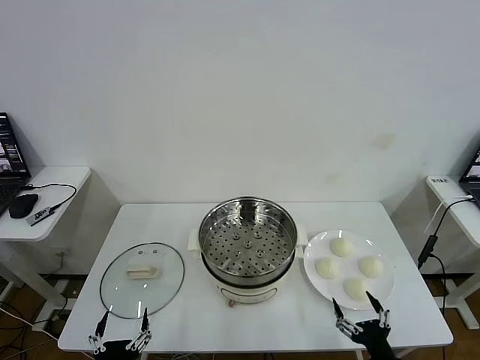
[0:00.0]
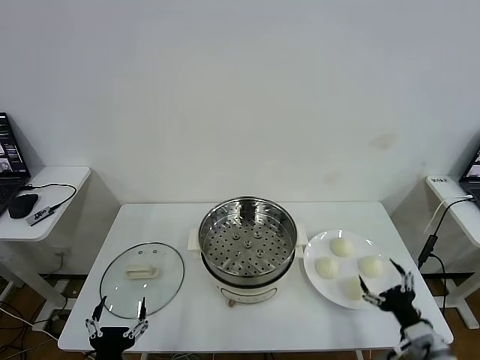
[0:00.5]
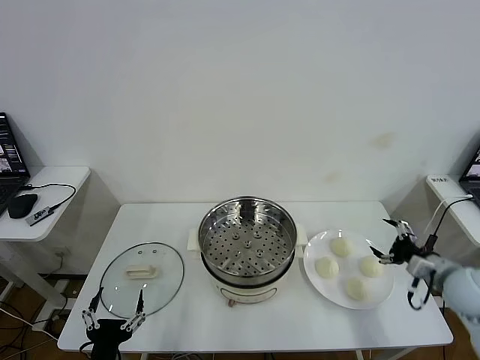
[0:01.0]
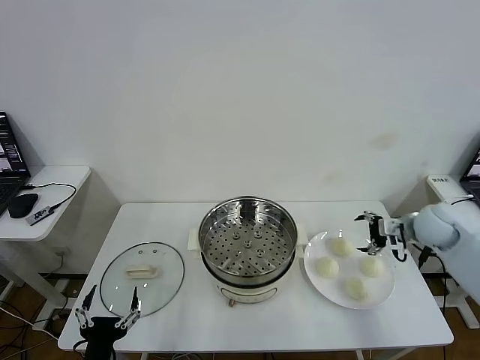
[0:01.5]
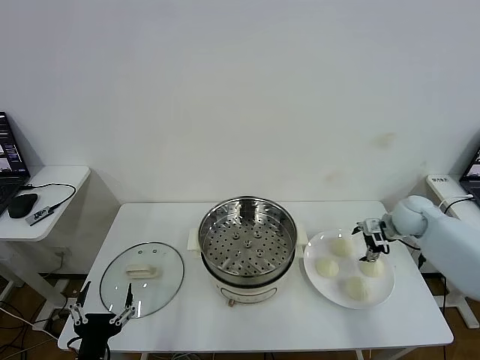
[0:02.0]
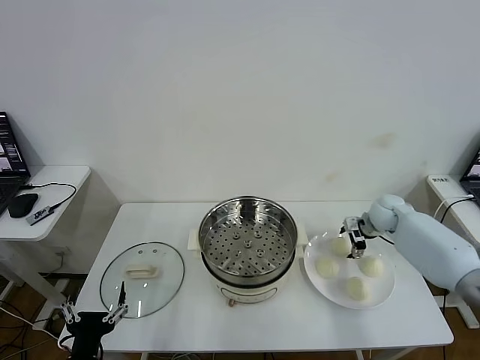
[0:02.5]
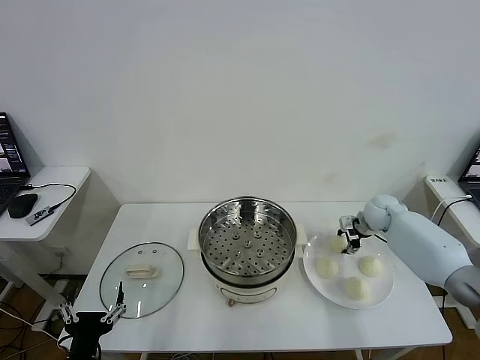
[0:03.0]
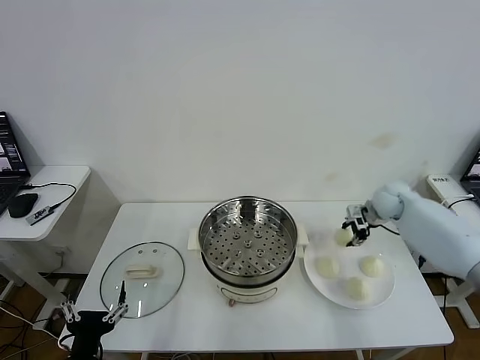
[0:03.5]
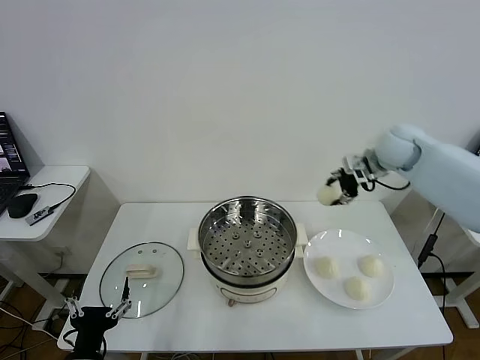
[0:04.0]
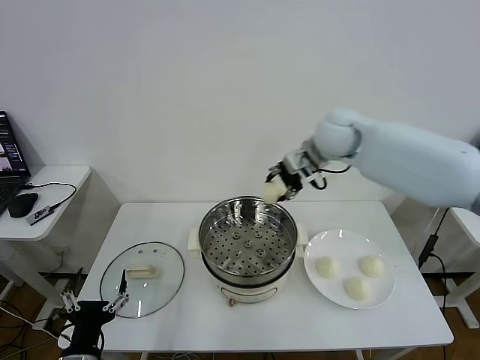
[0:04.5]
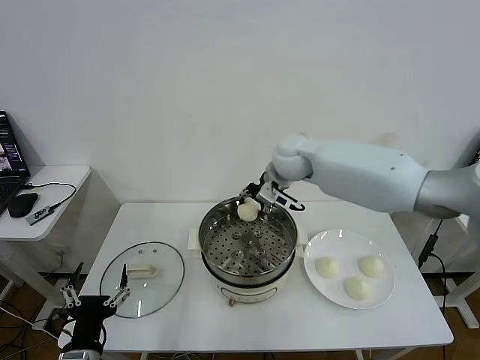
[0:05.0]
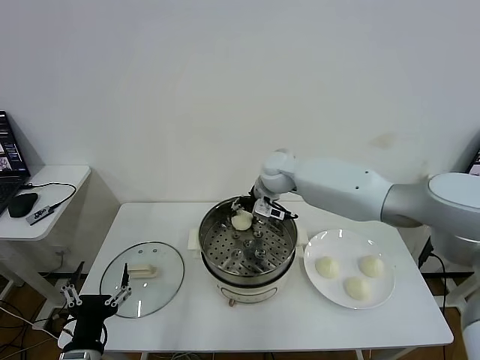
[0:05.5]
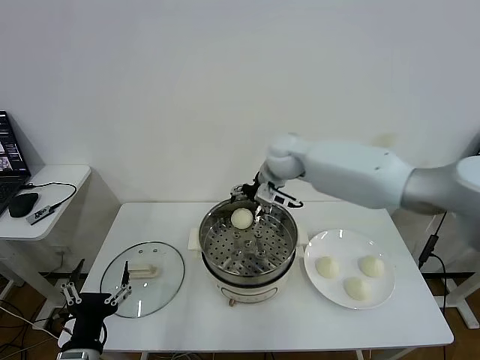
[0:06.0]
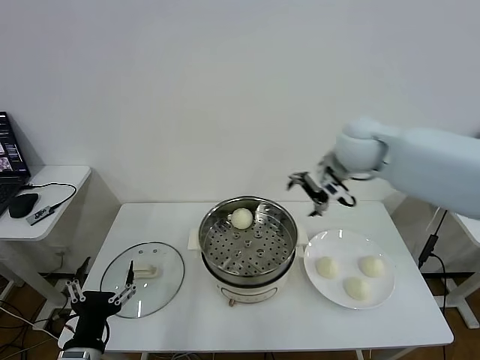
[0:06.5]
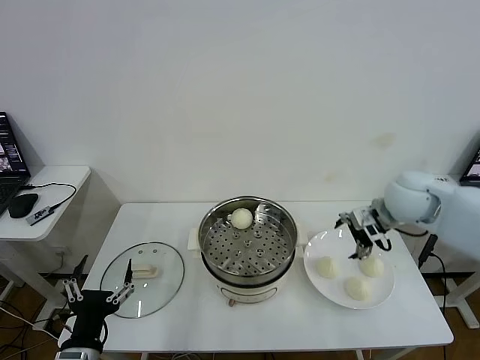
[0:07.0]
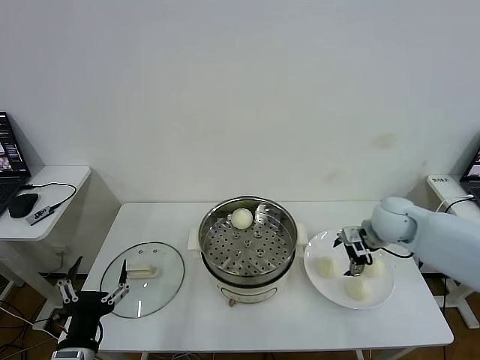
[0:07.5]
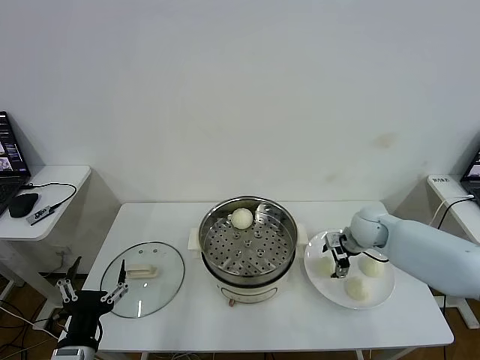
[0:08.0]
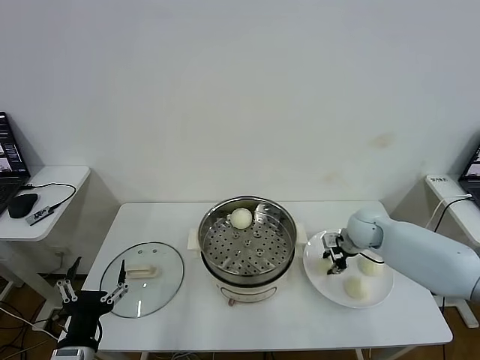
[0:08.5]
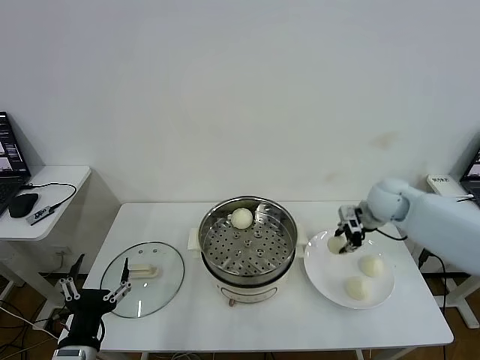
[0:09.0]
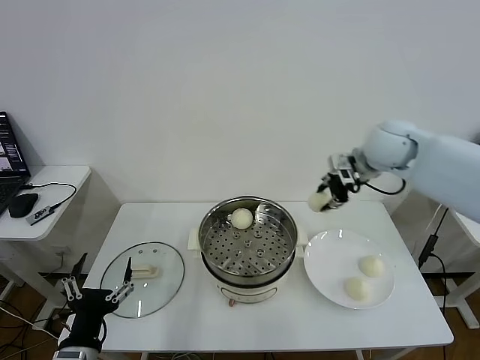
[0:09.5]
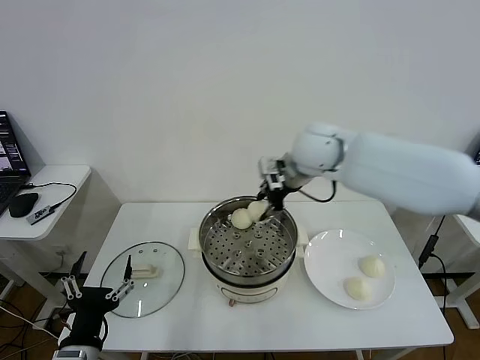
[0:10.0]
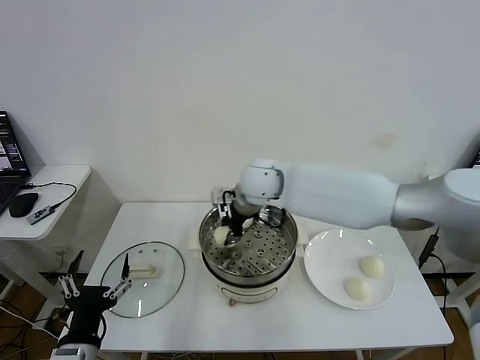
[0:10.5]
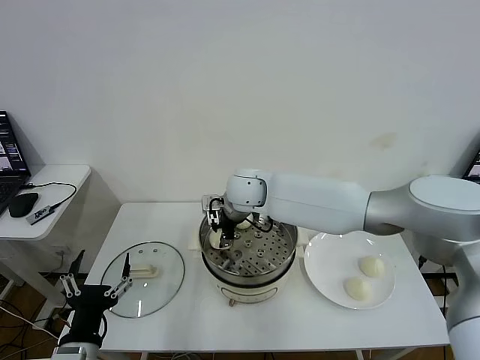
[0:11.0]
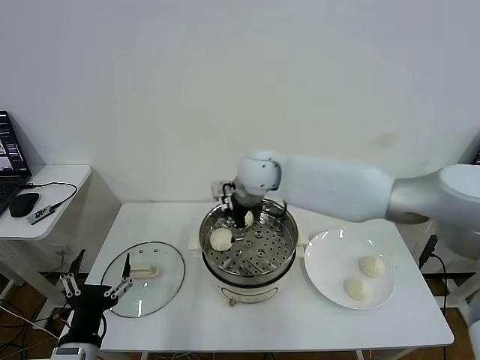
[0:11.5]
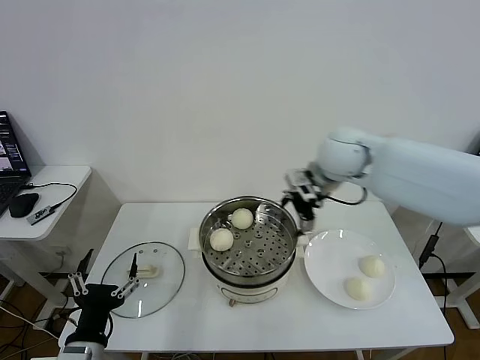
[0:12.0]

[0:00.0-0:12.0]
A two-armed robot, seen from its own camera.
Task of the whole recording: take steamed baozi put them in steamer then cover it.
Step, 0:00.0 to 0:02.5: Grasp the baozi in the plate with right gripper.
Step, 0:03.5 to 0:05.5: Place the baozi on the steamer with right gripper.
Step, 0:06.0 to 0:08.0: Grasp the baozi in the plate with right gripper.
Step, 0:08.5 to 0:11.0: Place the baozi on the steamer with right gripper.
0:02.0 to 0:04.0: The right gripper shifts some 20 cm upward and to the left, and closes its fingers.
0:04.0 to 0:06.0: The right gripper travels to the left by roughly 25 cm, and opens its fingers.
0:06.0 to 0:08.0: The right gripper travels to the right and downward by some 25 cm.
0:08.0 to 0:10.0: The right gripper moves upward and to the left, some 30 cm, and closes.
0:10.0 to 0:12.0: The right gripper goes to the left and returns, approximately 15 cm each way, and opens its fingers.

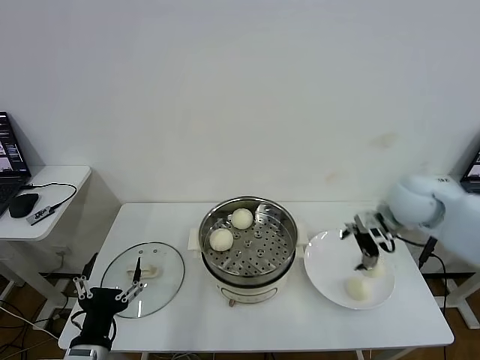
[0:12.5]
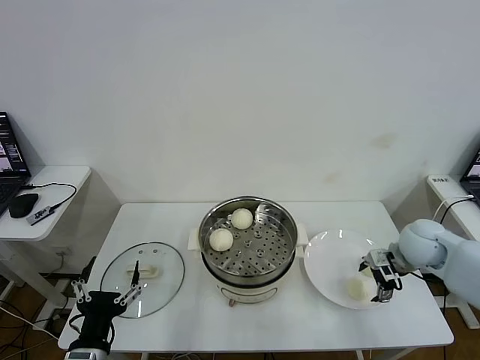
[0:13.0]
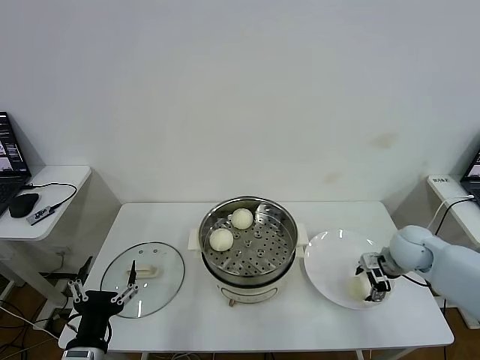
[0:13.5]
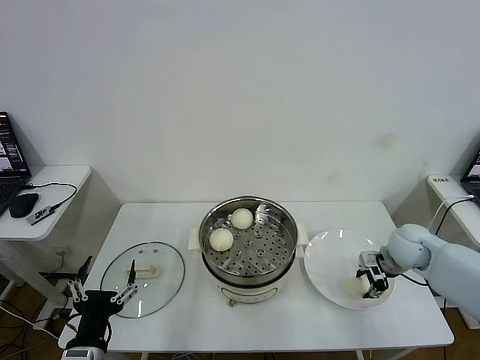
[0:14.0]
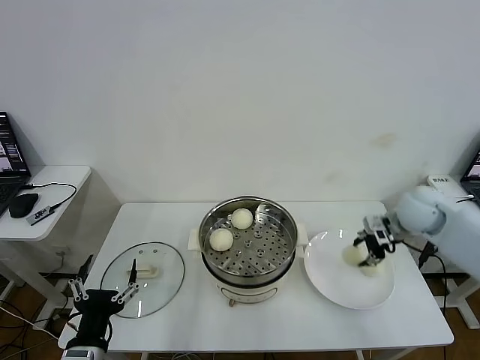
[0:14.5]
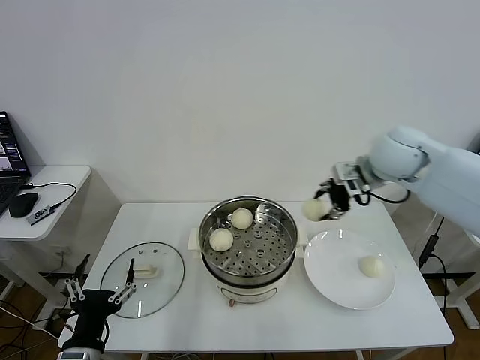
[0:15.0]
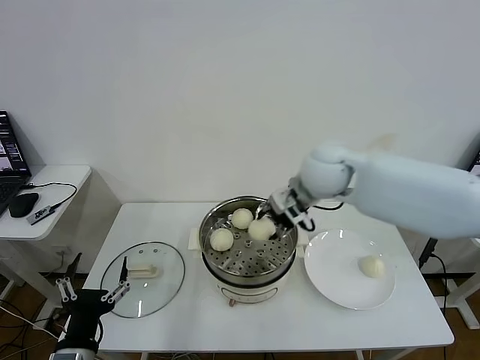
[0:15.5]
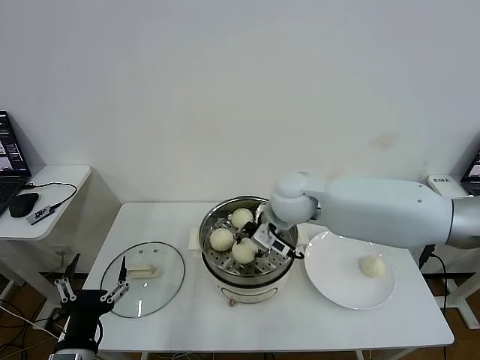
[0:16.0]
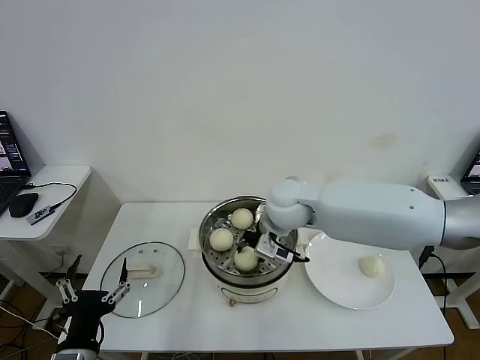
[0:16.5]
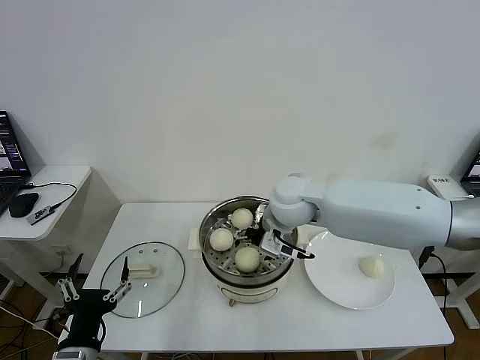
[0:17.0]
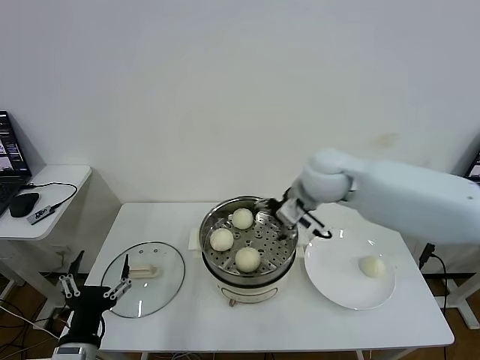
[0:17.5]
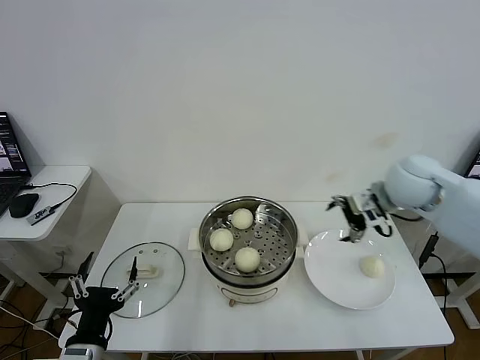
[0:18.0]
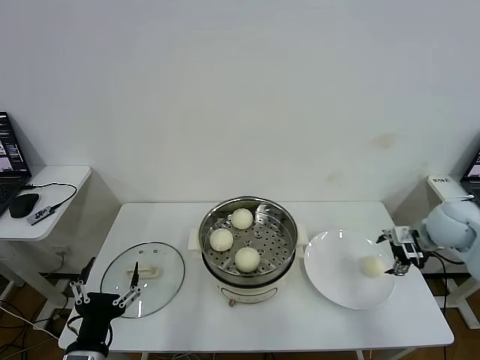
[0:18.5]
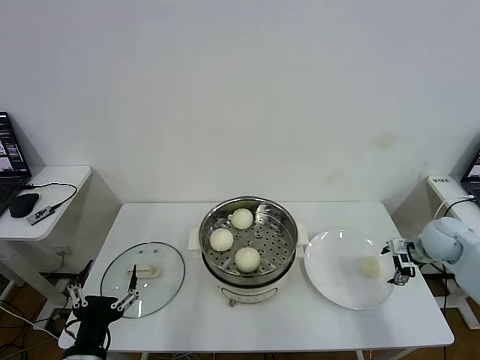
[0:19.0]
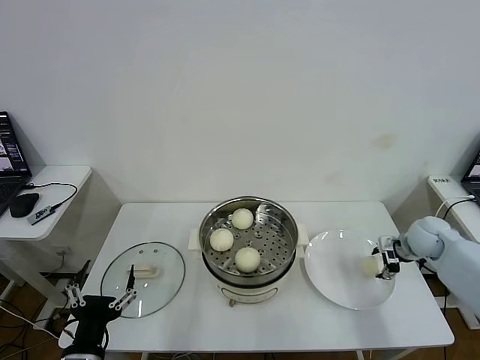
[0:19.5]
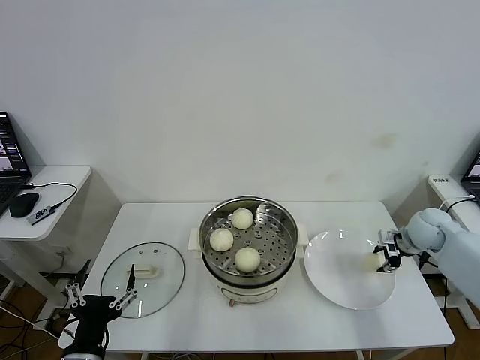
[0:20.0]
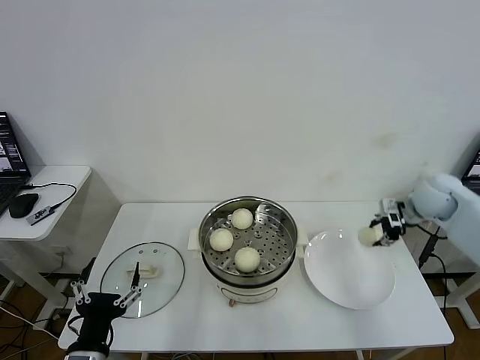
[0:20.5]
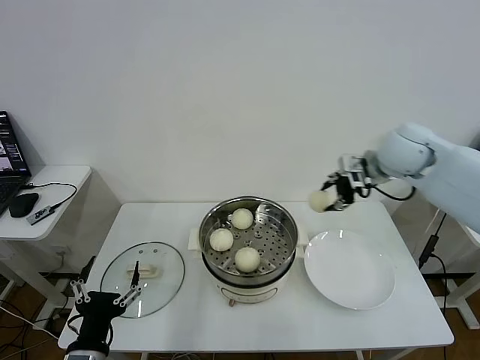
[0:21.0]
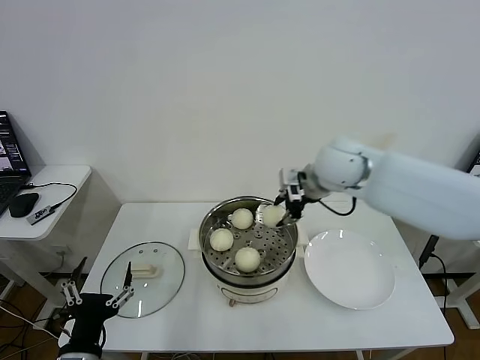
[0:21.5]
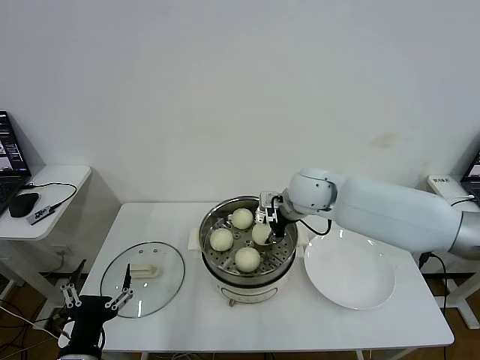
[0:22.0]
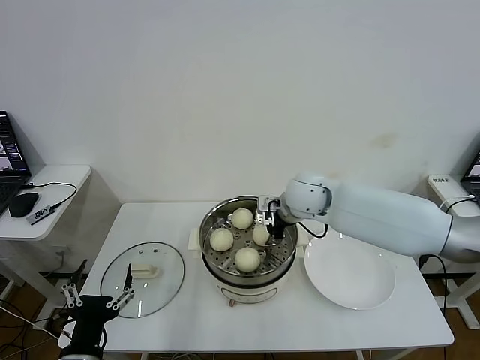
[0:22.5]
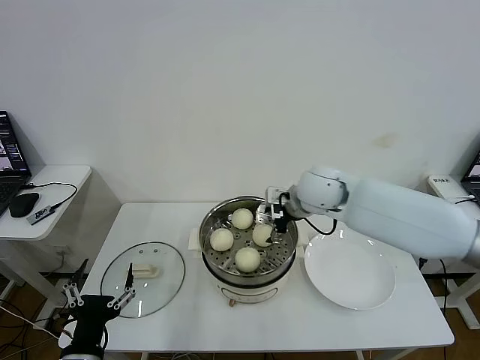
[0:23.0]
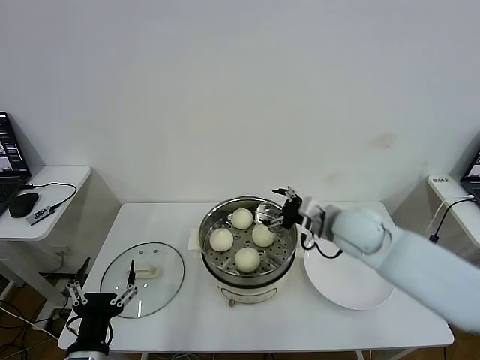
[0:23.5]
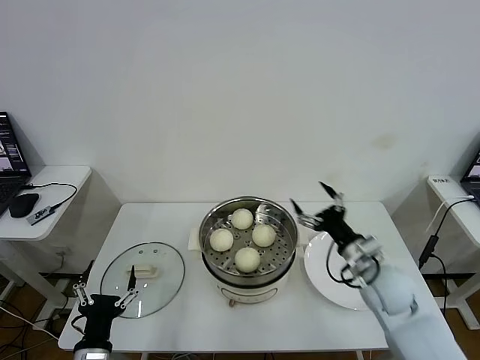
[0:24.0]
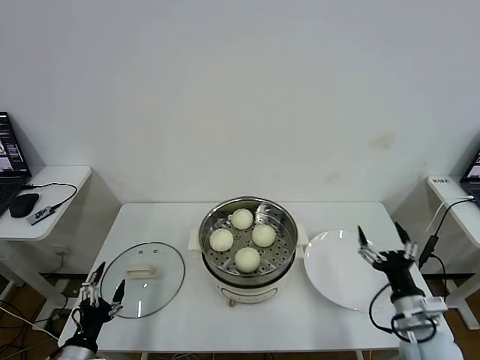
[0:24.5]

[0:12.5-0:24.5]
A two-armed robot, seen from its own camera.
Task of the whole recording: take steamed baozi put them in steamer then cover it.
Step, 0:14.0 to 0:16.5: Place the baozi on the steamer with right gripper.
Step, 0:17.0 to 0:19.5: Grasp the baozi in the plate with right gripper.
Step, 0:20.0 to 0:22.5: Place the baozi on the steamer with right gripper.
0:12.5 to 0:14.5: The right gripper travels downward and back again, approximately 15 cm each way, and closes.
0:14.5 to 0:16.5: The right gripper shifts approximately 30 cm to the left.
0:16.5 to 0:18.5: The right gripper heads to the right, covering approximately 35 cm, and opens.
0:18.5 to 0:20.5: The right gripper shifts about 5 cm forward, reaches approximately 10 cm downward, then returns, and closes.
0:20.5 to 0:22.5: The right gripper goes roughly 30 cm to the left.
0:22.5 to 0:24.5: The left gripper goes approximately 15 cm downward and to the left. Meanwhile the right gripper is displaced backward, to the right and downward by about 35 cm, and opens.

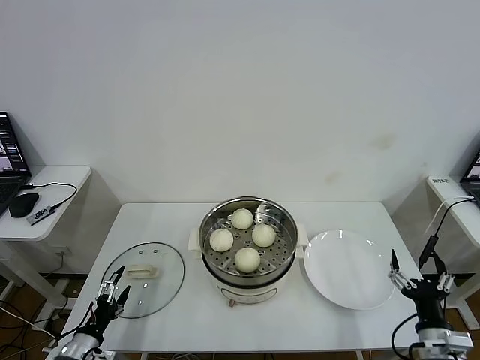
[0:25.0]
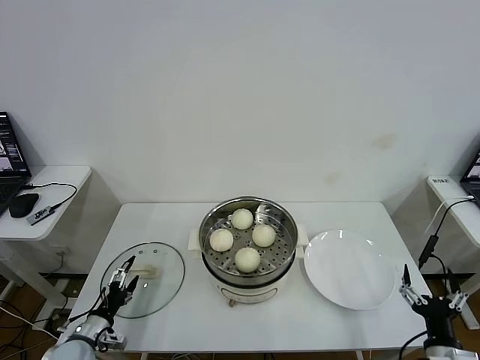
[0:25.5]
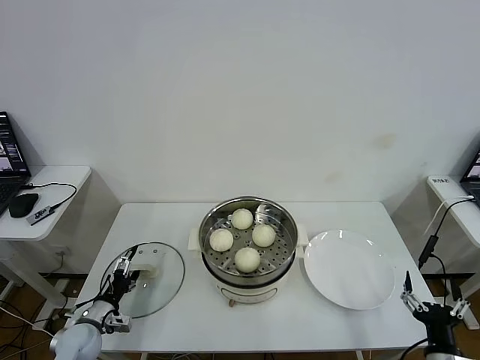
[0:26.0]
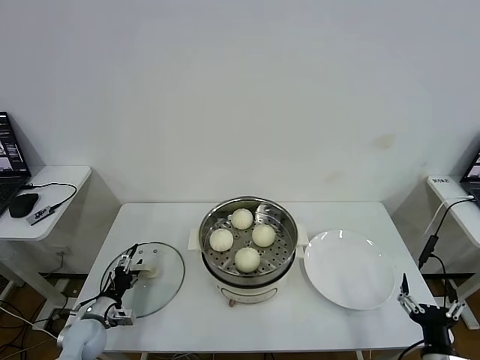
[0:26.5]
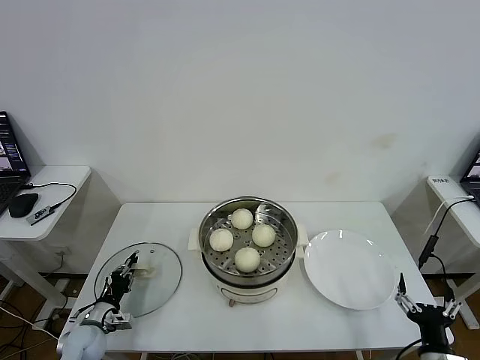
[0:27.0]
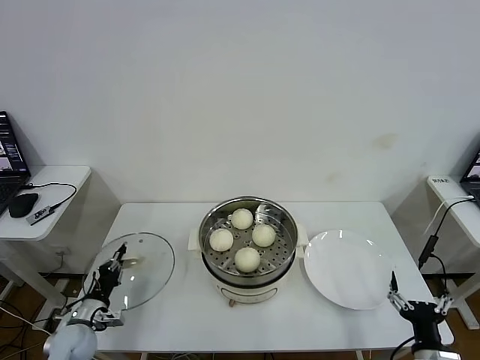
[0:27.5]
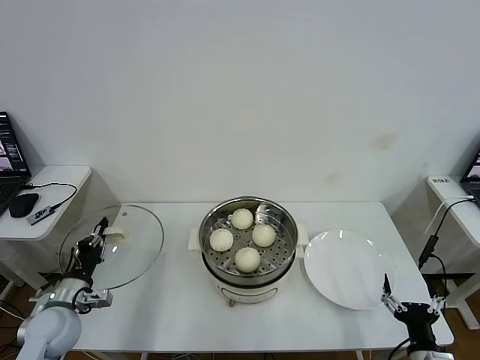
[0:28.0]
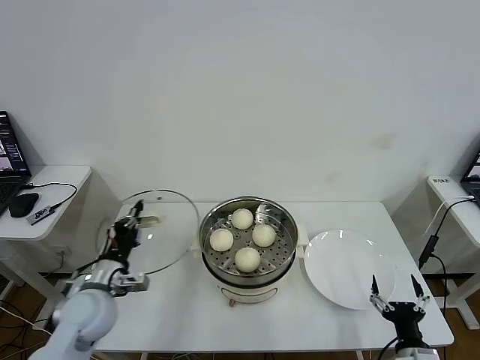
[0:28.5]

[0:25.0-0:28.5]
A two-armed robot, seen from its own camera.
Task of the whole recording: take steamed baozi put them in steamer then cover it.
Step, 0:25.0 to 0:27.0: Grasp the pot lid with left gripper.
0:25.0 to 0:27.0: The left gripper moves forward and downward, about 10 cm, and closes up. Meanwhile the right gripper moves about 5 cm.
0:27.0 to 0:28.5: The left gripper heads upward and to the right, covering roughly 20 cm.
